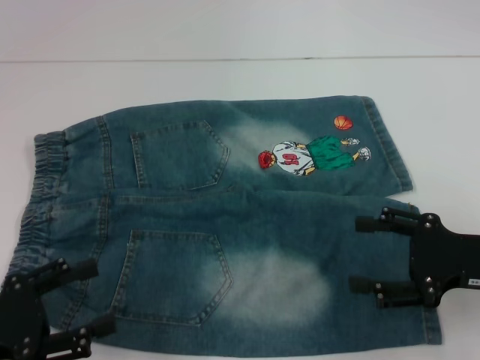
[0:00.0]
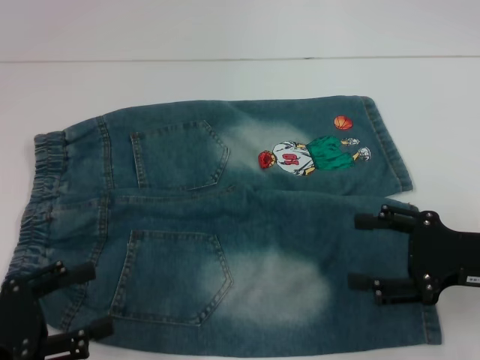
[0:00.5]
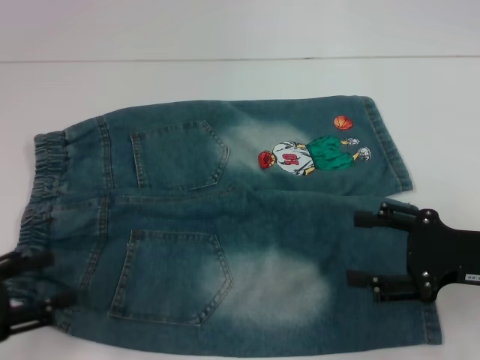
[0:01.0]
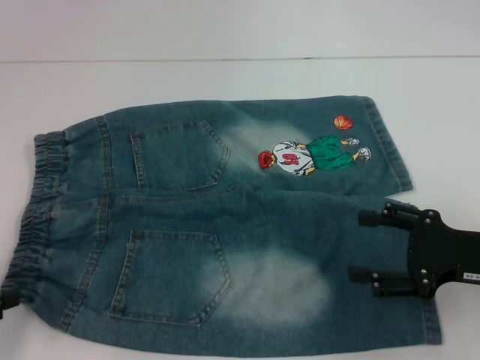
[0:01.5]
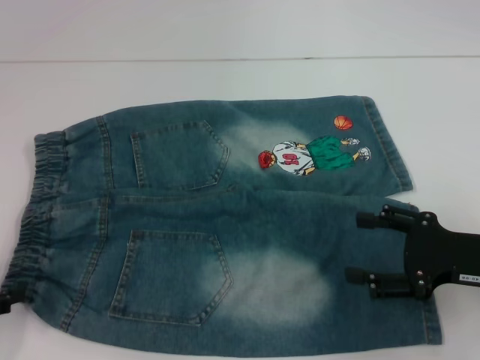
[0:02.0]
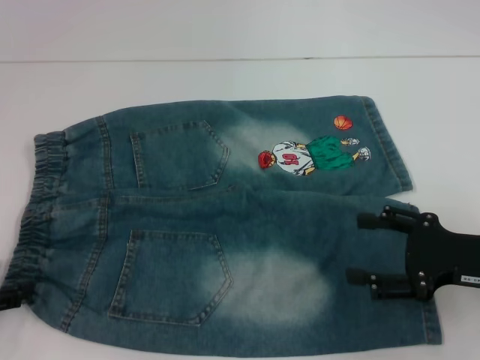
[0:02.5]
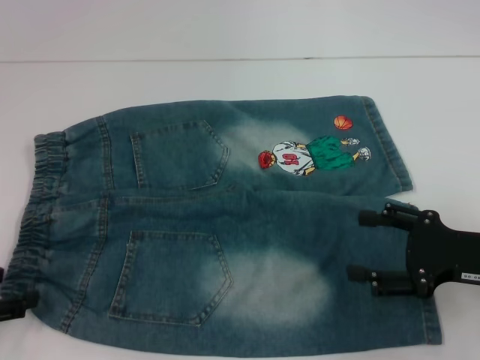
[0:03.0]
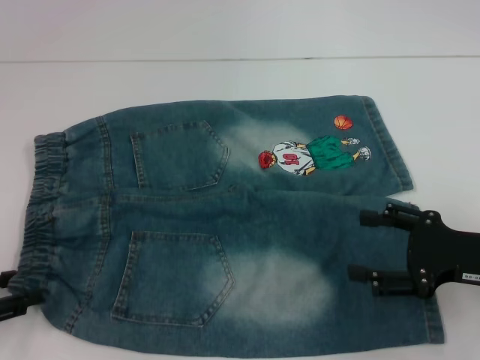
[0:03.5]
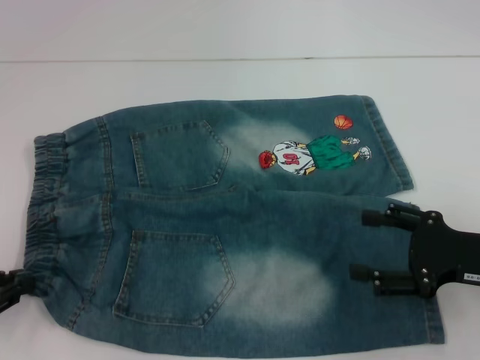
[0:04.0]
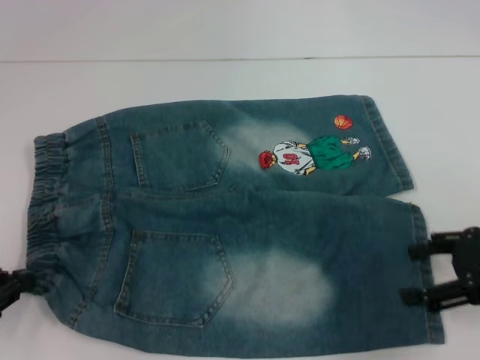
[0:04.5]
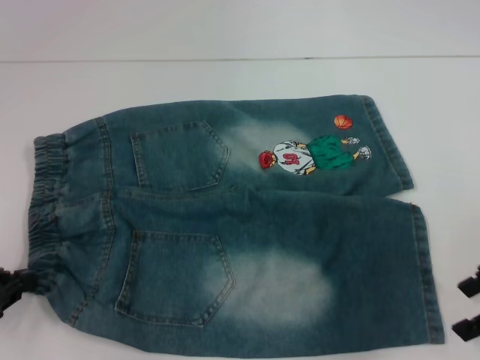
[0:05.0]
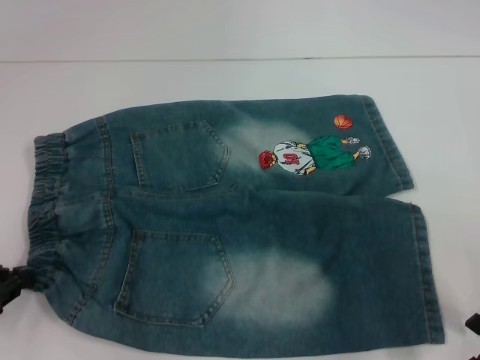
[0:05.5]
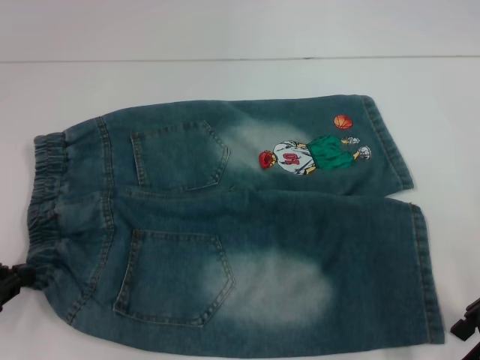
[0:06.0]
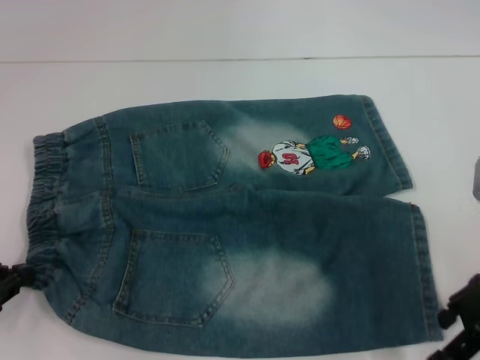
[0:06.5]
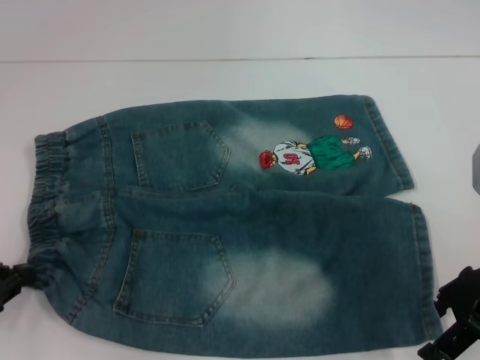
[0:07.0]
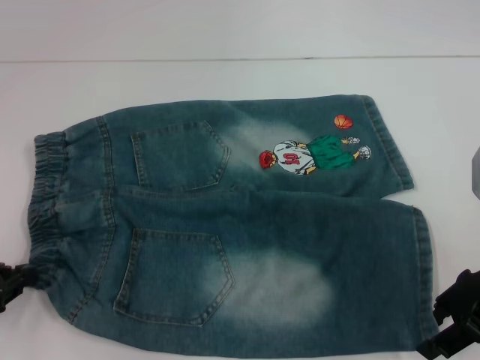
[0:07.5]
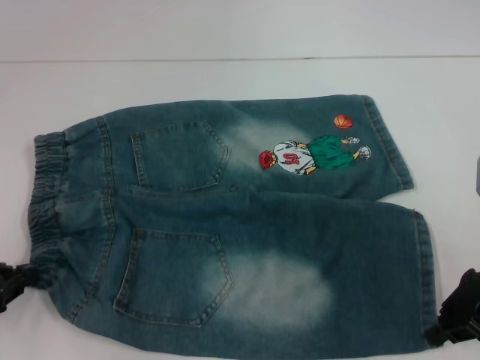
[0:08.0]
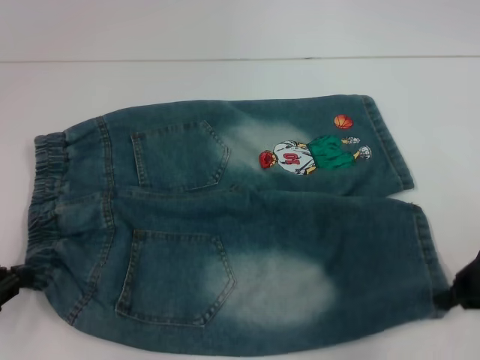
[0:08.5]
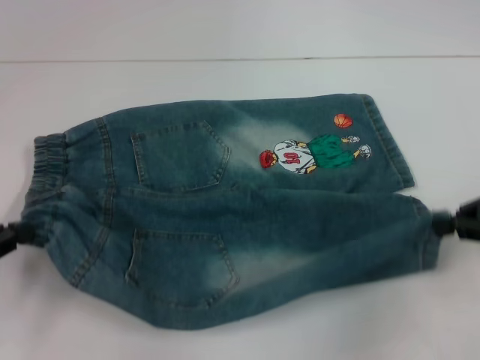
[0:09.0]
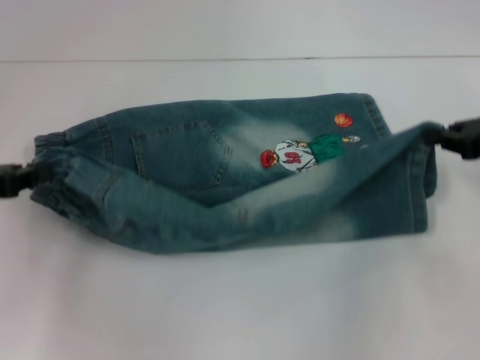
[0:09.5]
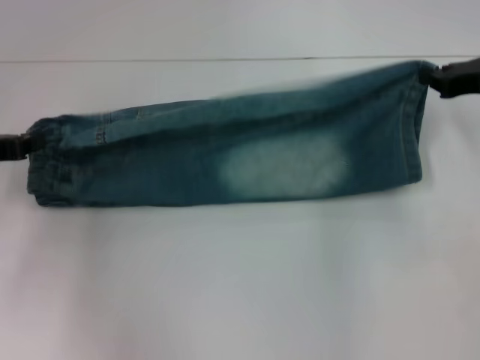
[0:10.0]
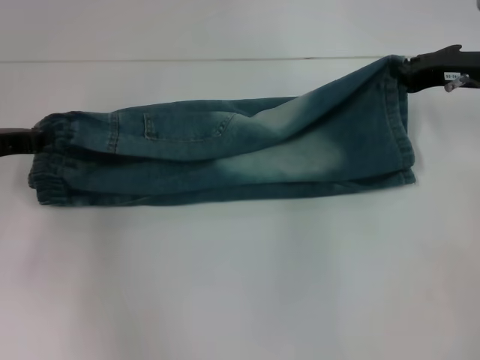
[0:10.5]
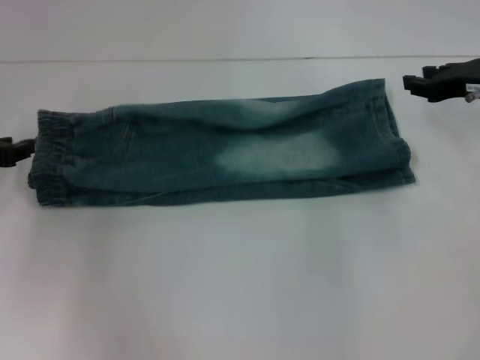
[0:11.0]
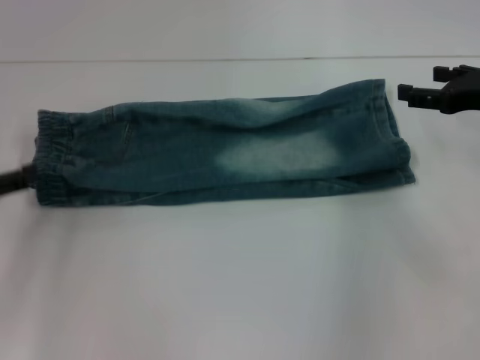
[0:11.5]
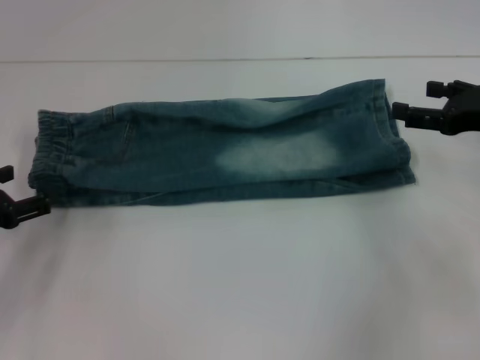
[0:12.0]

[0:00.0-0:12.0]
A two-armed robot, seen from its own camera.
Step, 0:00.0 to 0:04.0: Hold the lower left waistband with your left hand.
Step, 0:04.5 to 0:08.0: Grab the lower right pant leg with your right hand.
Step, 0:08.5 to 0:11.0: Fold to the left with your right hand.
0:00.0 to 0:02.0: The left gripper shifts roughly 5 cm to the left.
0:02.0 to 0:04.0: The left gripper closes.
0:04.0 to 0:06.0: The right gripper shifts by approximately 5 cm.
0:06.0 to 0:08.0: The right gripper closes its fingers.
0:08.0 to 0:10.0: The right gripper goes some 10 cm forward; the left gripper travels forward and upward by some 10 cm.
0:10.0 to 0:12.0: The left gripper shifts roughly 10 cm backward and downward, and opens. The right gripper shifts approximately 5 cm backward, and opens its fingers.

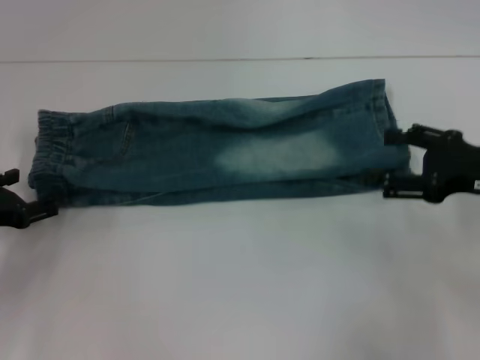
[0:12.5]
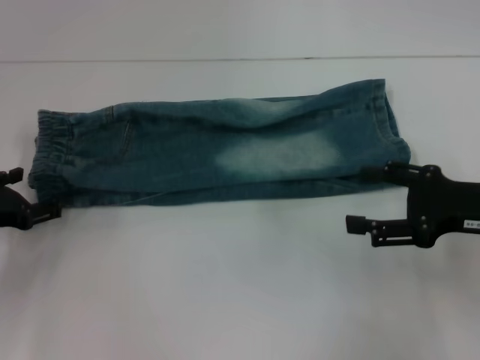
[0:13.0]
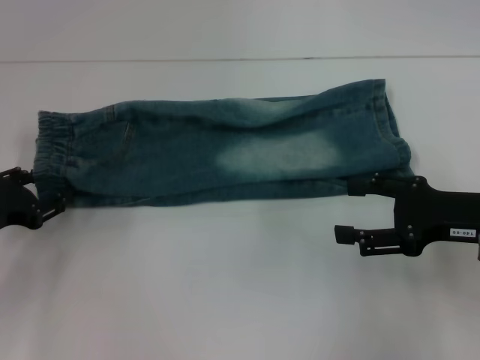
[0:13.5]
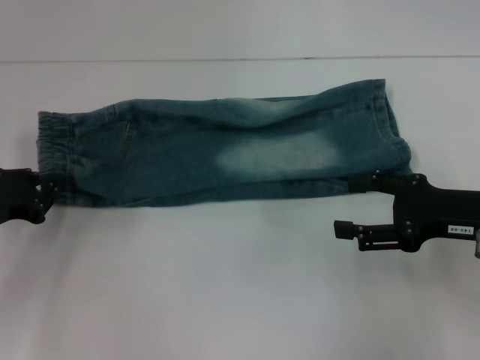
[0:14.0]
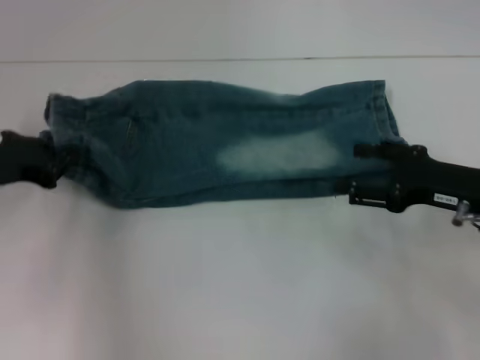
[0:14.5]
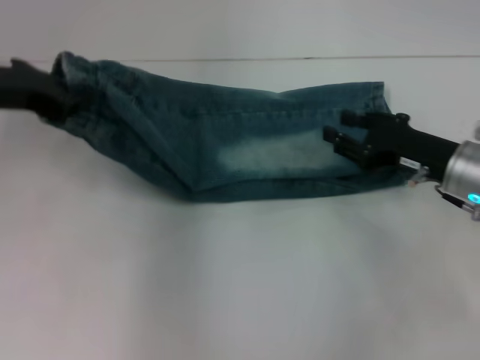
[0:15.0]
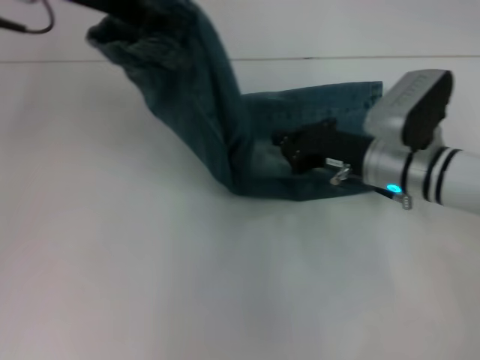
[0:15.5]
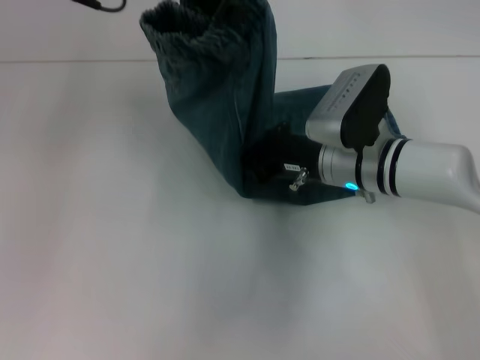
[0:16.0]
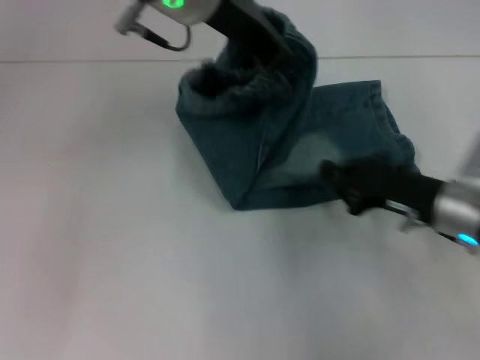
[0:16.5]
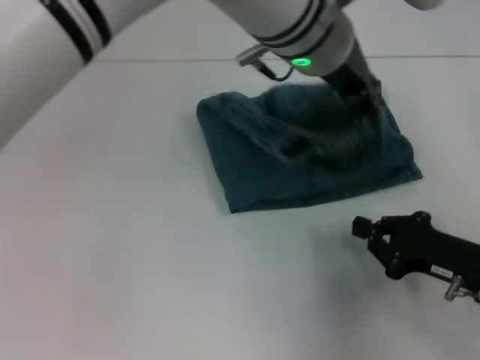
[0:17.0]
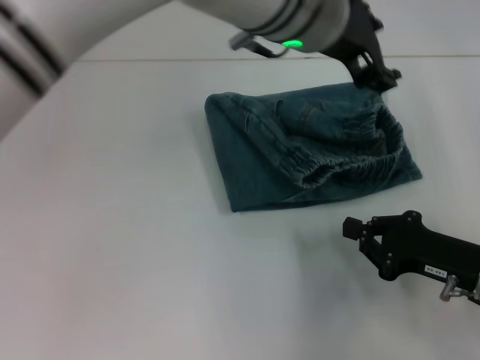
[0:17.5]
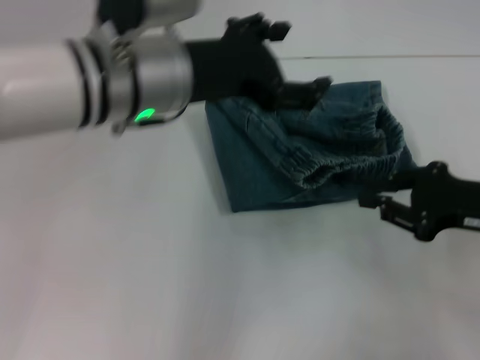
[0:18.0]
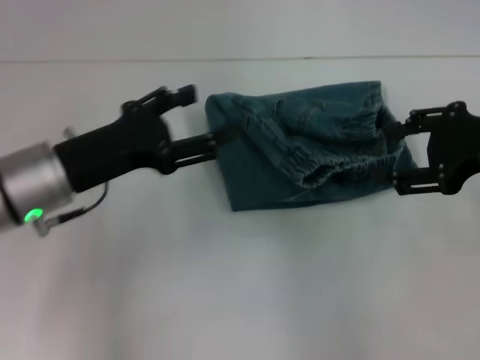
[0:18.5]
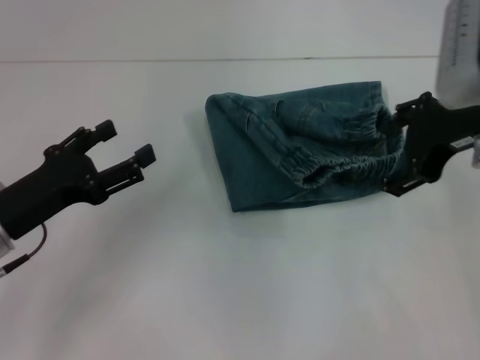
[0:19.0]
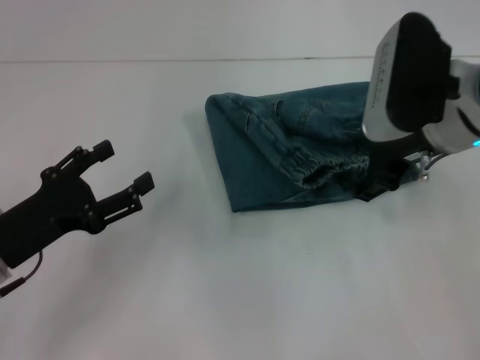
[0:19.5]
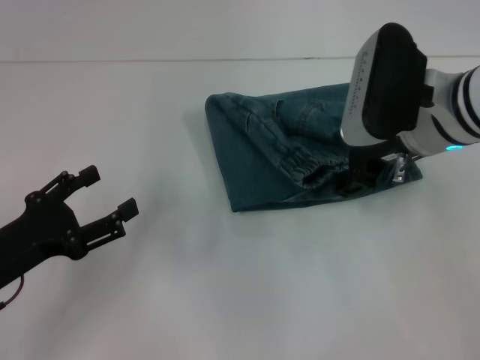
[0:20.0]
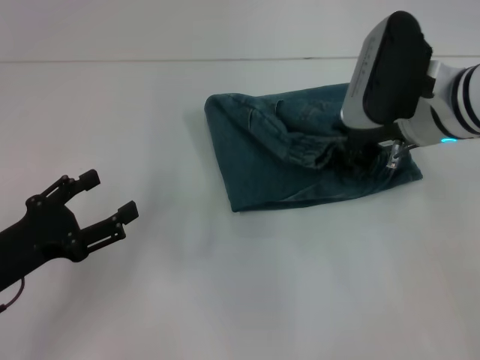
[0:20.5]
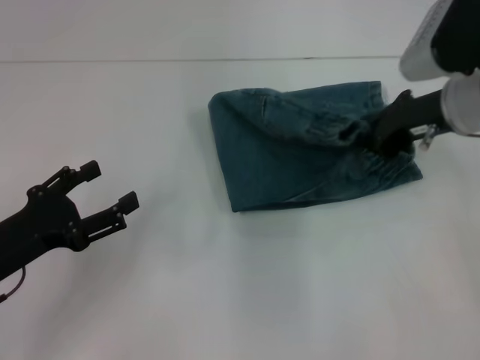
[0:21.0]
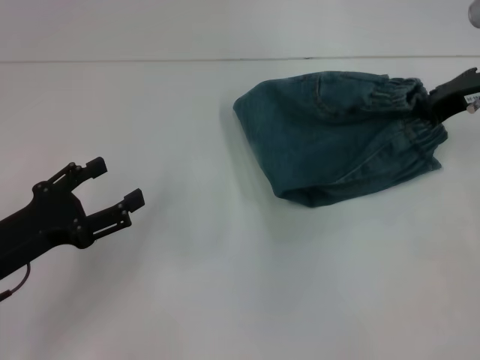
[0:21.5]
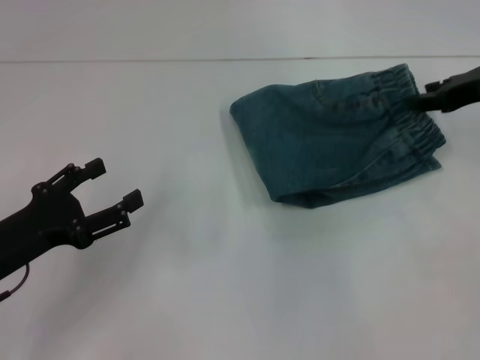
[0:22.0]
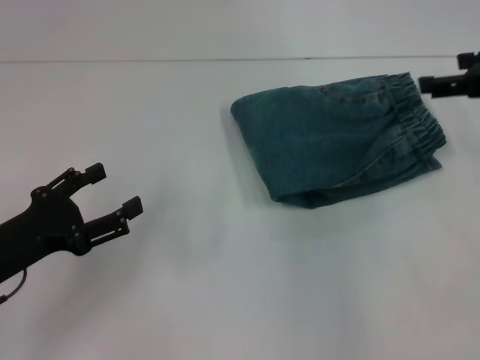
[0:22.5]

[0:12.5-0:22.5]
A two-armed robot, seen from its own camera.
Step, 0:12.5 to 0:14.0: Hold the waistband with your left hand.
Step, 0:14.5 to 0:16.0: Press the middle of the pants with your right hand.
Step, 0:16.5 to 0:17.5: Fold to the right with your left hand.
Step, 0:18.0 to 0:22.0: Adjust the pants with your right hand.
0:12.5 to 0:14.5: The left gripper goes about 5 cm upward, and closes up.
0:14.5 to 0:16.5: The right gripper reaches roughly 15 cm to the left, then returns, and closes up. Meanwhile the left gripper shifts about 30 cm to the right and upward.
0:16.5 to 0:18.5: The left gripper is displaced downward, to the left and backward by roughly 25 cm, and opens. Meanwhile the right gripper shifts approximately 15 cm upward, and opens up.
0:18.5 to 0:20.5: The right gripper travels to the left and forward by about 10 cm; the left gripper travels backward, to the left and downward by approximately 10 cm.
0:20.5 to 0:22.5: The right gripper shifts some 15 cm to the right, and closes, then reopens.

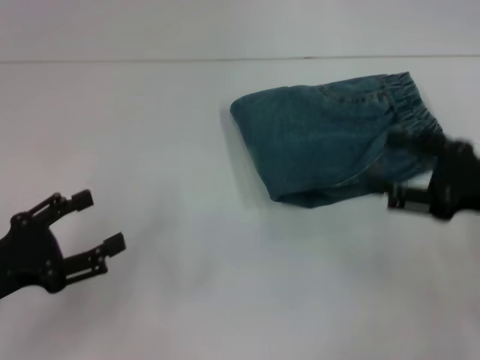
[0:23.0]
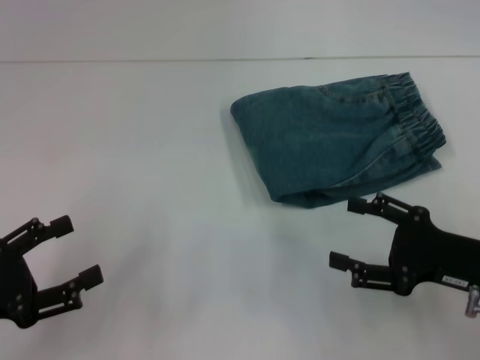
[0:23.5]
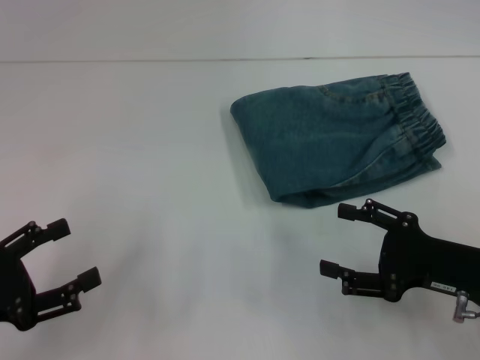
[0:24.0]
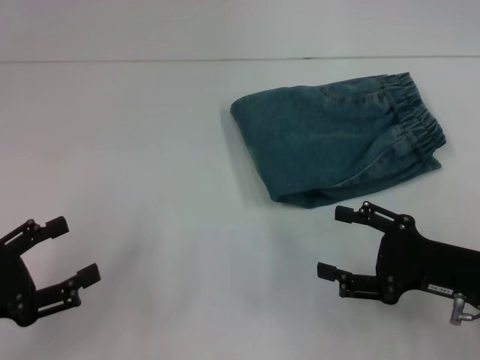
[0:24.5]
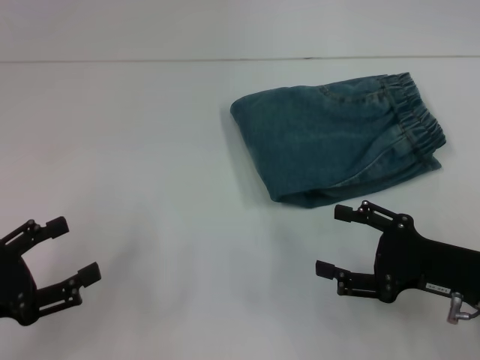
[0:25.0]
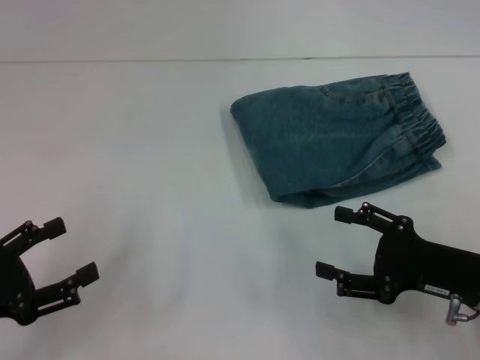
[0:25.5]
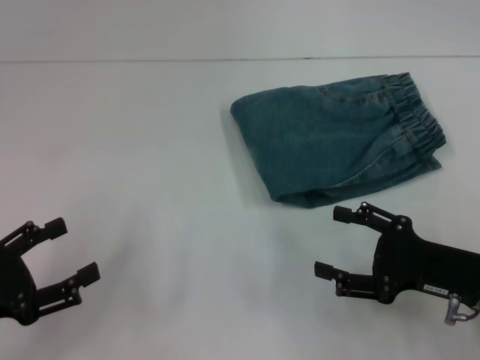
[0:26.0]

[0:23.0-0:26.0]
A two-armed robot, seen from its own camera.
0:23.0 to 0:24.5: The right gripper moves downward, approximately 5 cm.
0:24.5 to 0:26.0: The two grippers keep their place.
